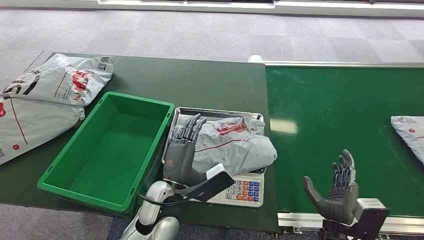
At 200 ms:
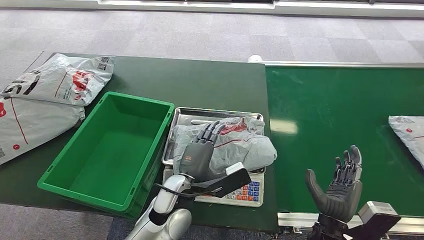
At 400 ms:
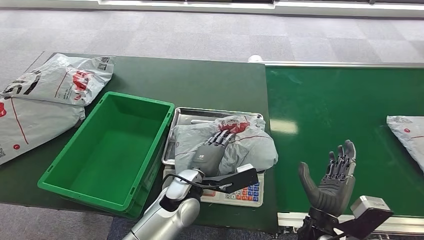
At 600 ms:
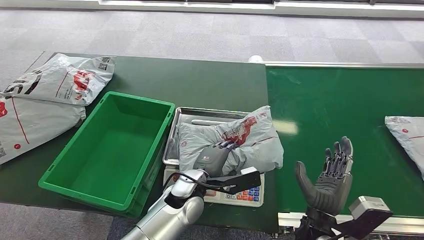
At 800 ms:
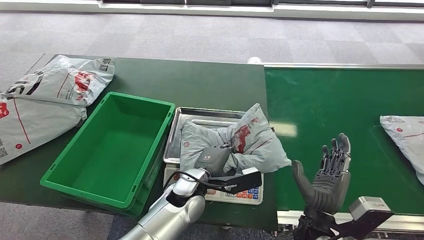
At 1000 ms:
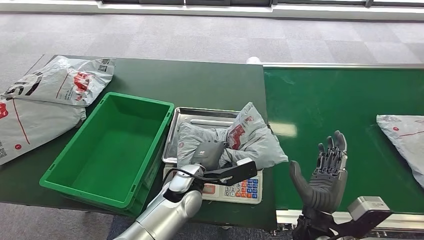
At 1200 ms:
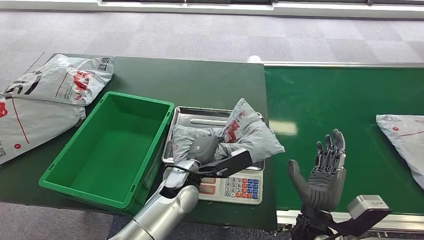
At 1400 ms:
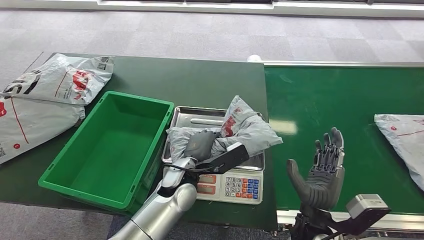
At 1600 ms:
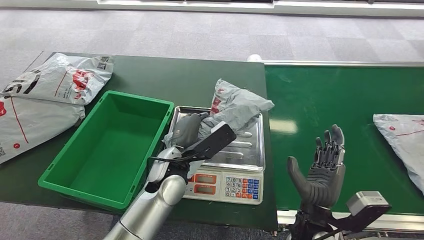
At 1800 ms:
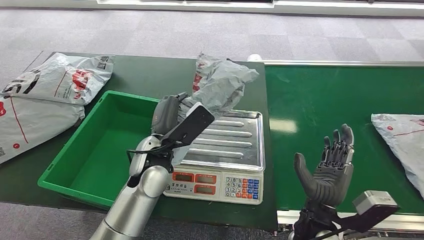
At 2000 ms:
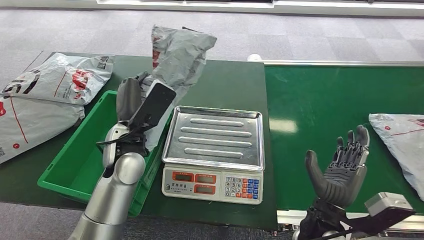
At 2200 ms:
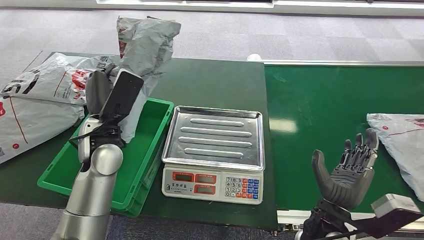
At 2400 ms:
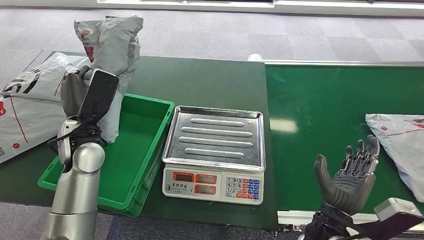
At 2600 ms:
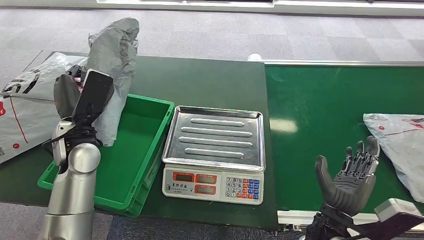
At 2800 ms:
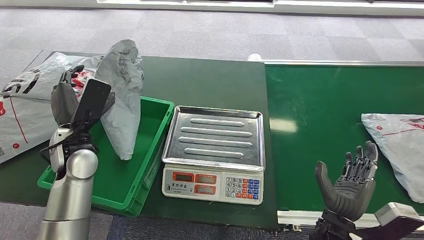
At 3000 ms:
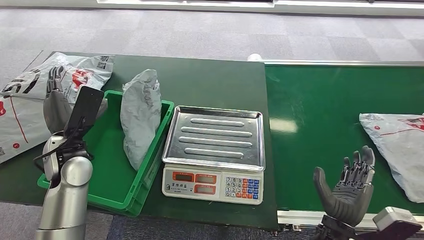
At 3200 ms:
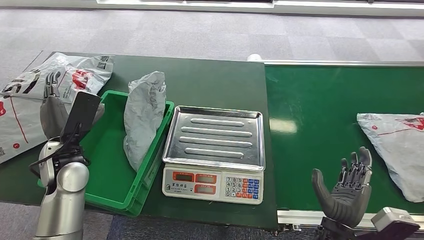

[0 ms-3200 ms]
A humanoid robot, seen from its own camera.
Task of the whole recording: Weigh the package on the weighing device and place it in the left basket.
Step, 400 ms to 1800 ms: Pick up the package from the inbound machine.
Step, 2200 ms to 3200 ms: Place the package into the parcel locker.
0 ms to 1600 ms: The left hand heads forward, covering roughly 5 cm. Meanwhile the right hand shifts about 10 cm to the left and upward.
